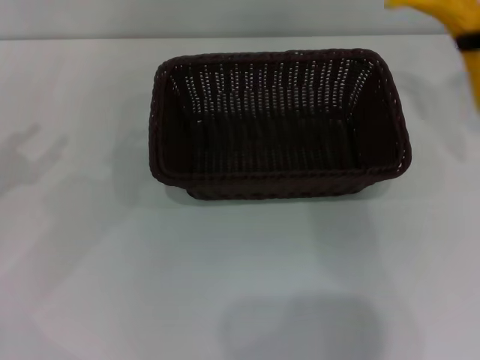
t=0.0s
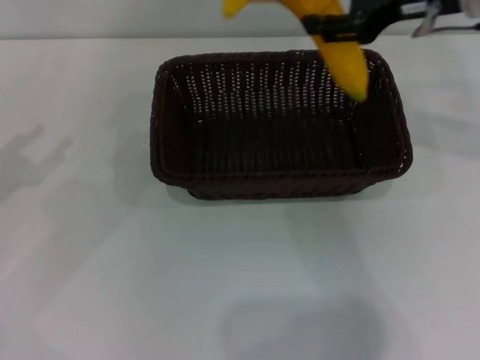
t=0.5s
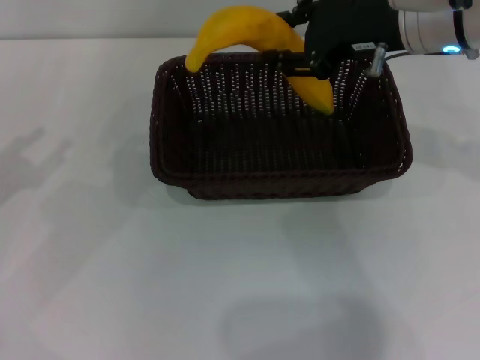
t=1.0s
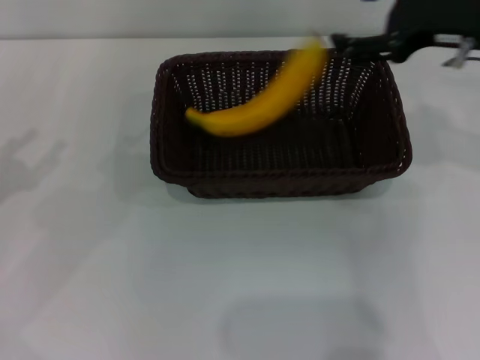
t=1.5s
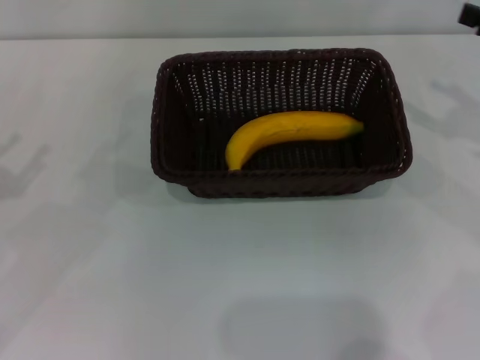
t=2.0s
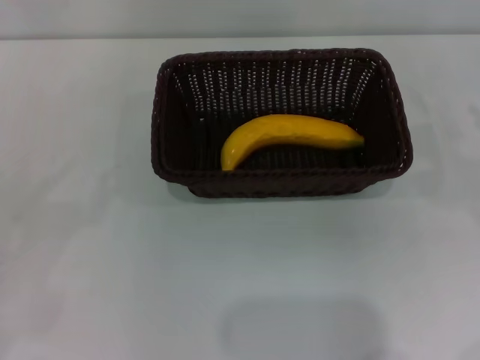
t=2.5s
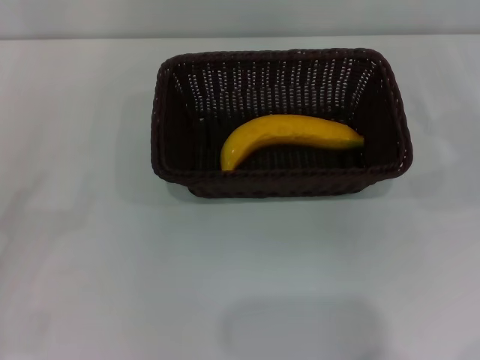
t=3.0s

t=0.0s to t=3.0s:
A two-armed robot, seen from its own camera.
Step, t=0.0s to t=1.5s: Place the banana into the dark basket with the right gripper.
t=0.0s to t=1.5s: The right gripper is displaced to the left by some 5 cm, and opens up.
t=1.5s to t=3.0s: The right gripper goes approximately 20 cm to the right and downward. The left gripper moves backward and downward, some 10 cm.
